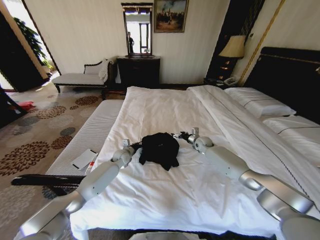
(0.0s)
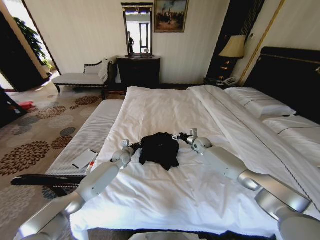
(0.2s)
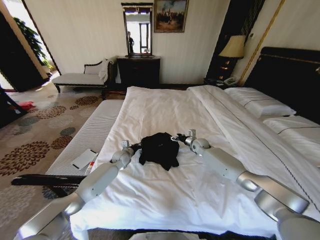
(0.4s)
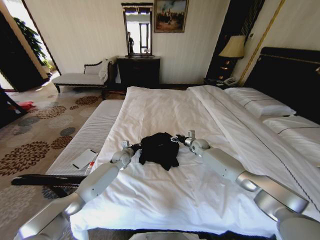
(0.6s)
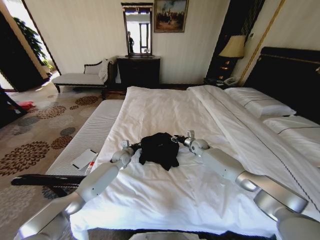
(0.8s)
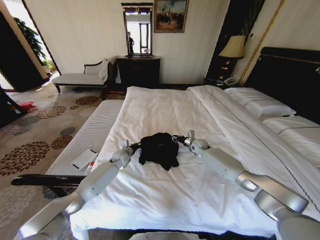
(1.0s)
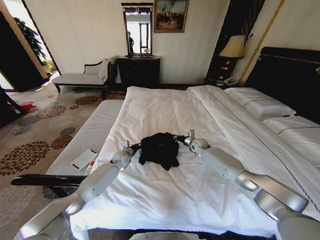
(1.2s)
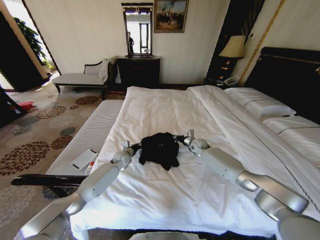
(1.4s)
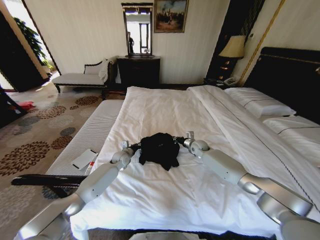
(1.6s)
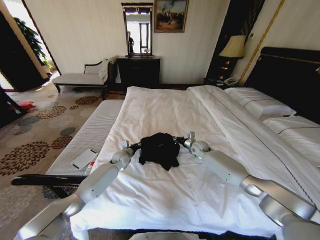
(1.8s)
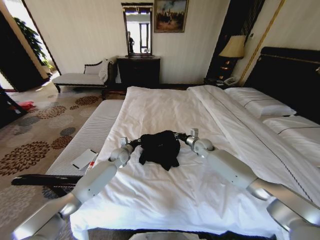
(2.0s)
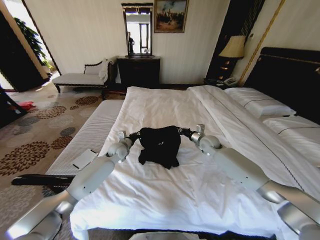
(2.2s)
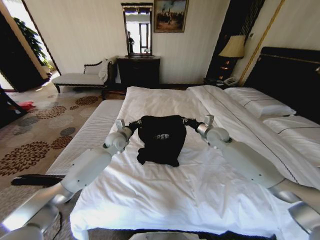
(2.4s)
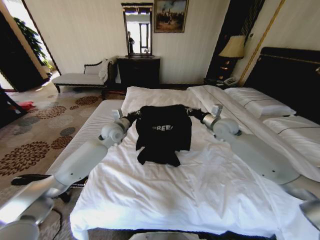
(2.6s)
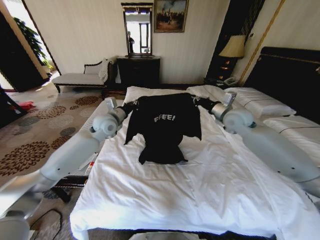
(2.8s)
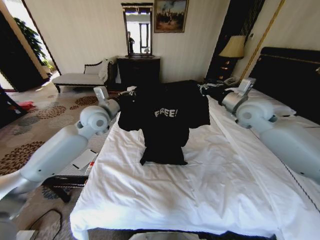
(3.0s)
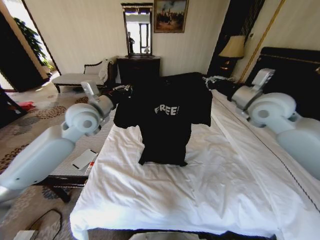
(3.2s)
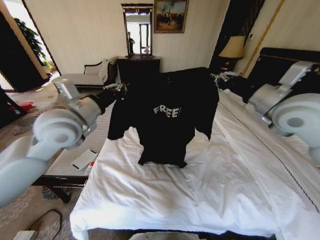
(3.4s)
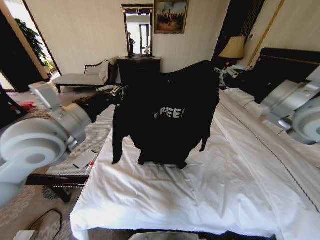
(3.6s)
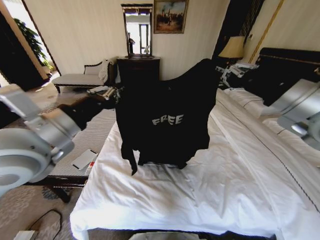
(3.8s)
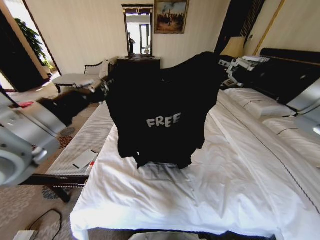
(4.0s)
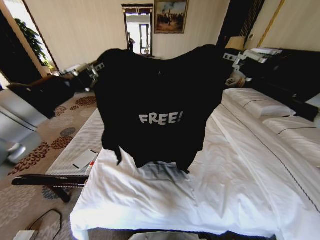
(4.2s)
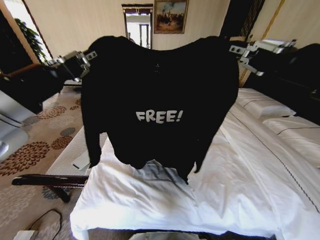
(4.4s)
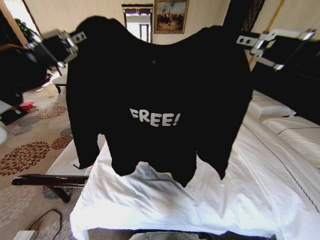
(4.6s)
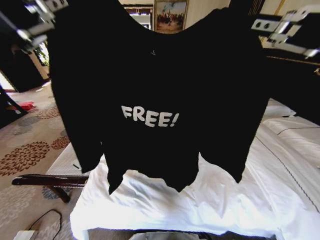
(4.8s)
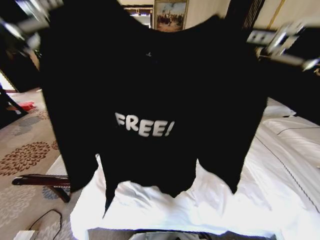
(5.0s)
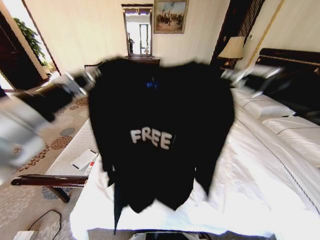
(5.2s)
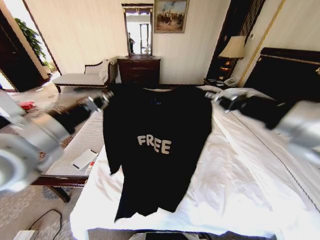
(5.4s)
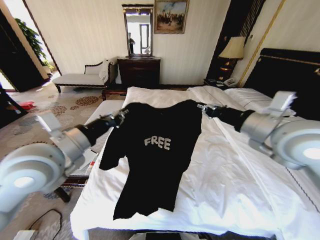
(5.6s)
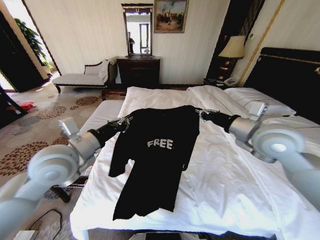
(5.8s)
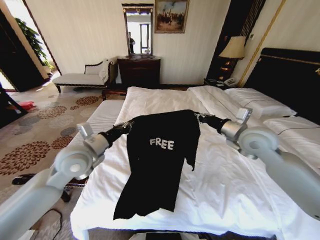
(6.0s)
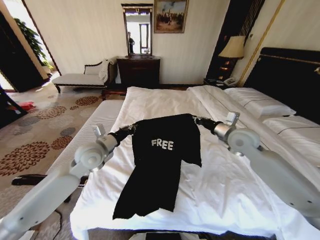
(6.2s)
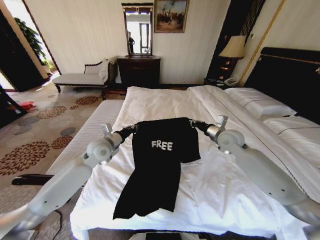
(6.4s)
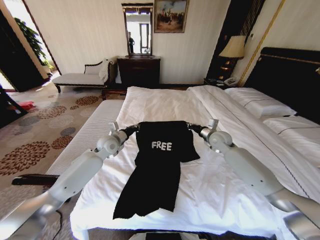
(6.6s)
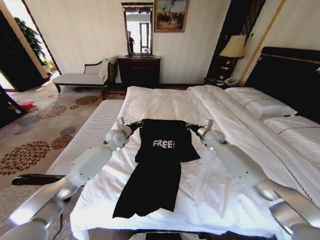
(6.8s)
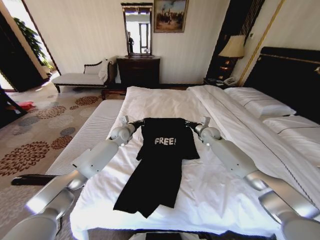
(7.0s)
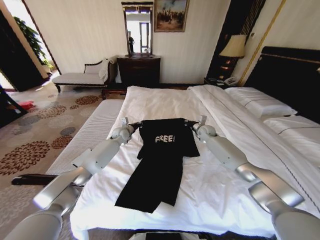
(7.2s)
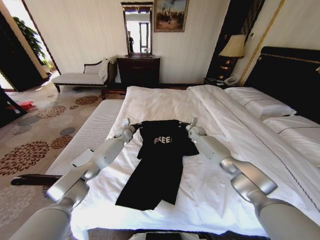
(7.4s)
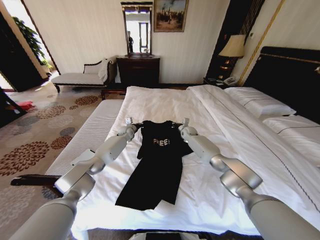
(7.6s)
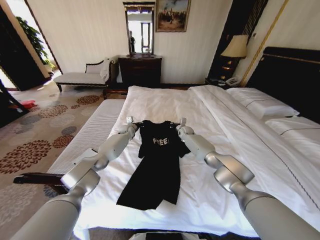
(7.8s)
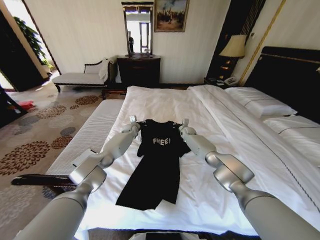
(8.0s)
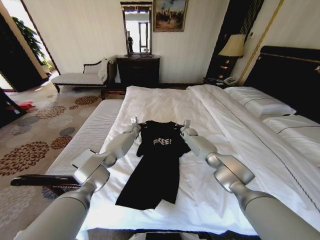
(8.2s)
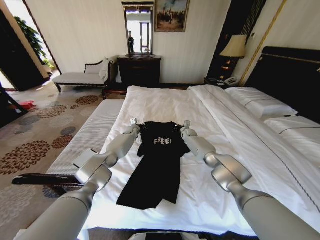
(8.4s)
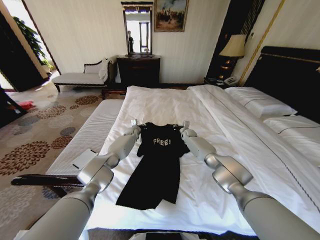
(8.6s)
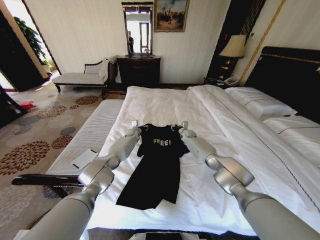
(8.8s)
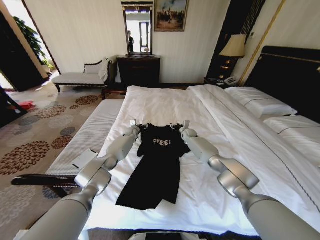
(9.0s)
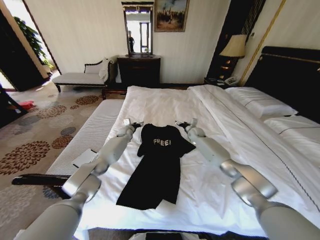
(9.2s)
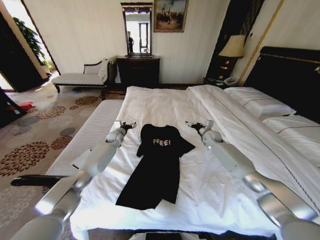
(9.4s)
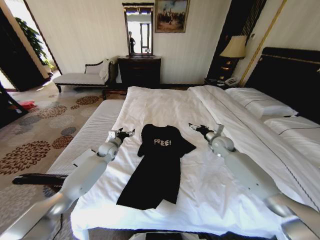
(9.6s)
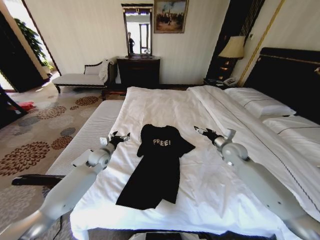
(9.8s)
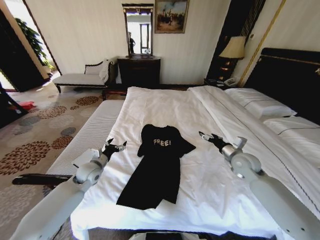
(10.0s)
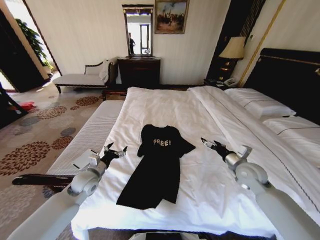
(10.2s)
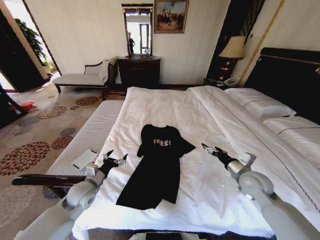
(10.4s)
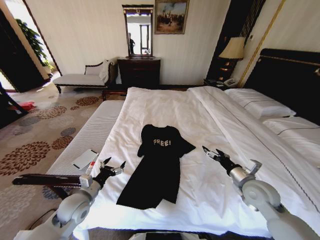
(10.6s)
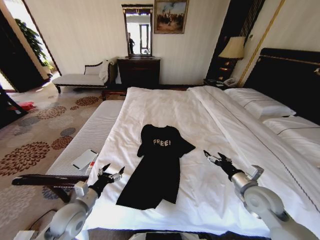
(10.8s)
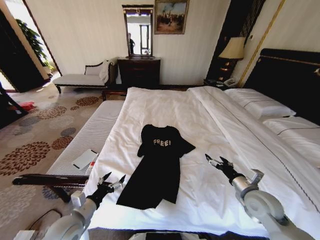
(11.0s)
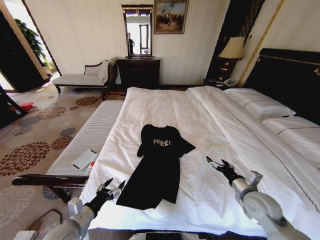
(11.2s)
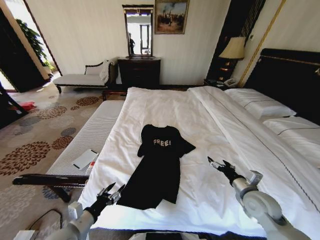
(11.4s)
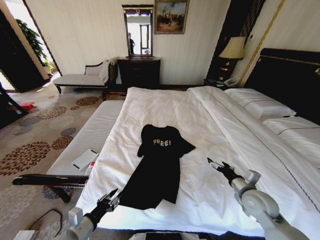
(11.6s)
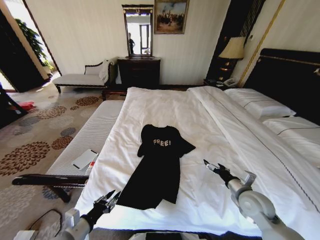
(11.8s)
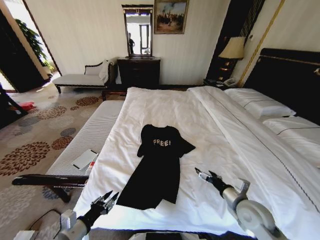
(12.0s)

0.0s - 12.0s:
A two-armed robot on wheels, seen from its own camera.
Task of the whole recording: Fold the clothes on the bed.
0.0s - 1.6s: The right gripper closes its fingers.
1.6s - 3.0s: The grippers both shift upward by about 30 cm.
3.0s - 4.4s: The grippers both shift backward and upward by some 30 cm.
4.4s - 6.0s: Both grippers travel together downward and forward, about 25 cm.
6.0s - 7.6s: Both grippers move forward and downward, roughly 35 cm.
7.6s - 9.0s: The left gripper opens; the right gripper opens its fingers.
9.0s - 10.4s: Both grippers move backward, approximately 35 cm. The right gripper opens up; the left gripper opens up.
10.4s - 12.0s: The right gripper goes some 10 cm backward, while the left gripper is displaced backward by about 15 cm, and closes up.

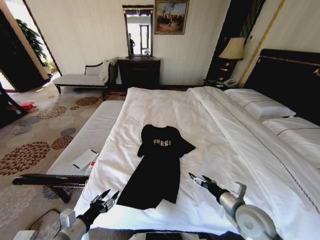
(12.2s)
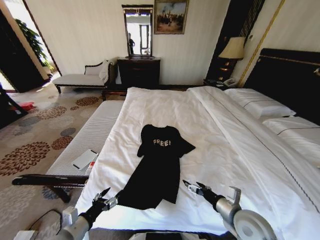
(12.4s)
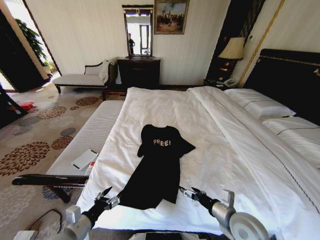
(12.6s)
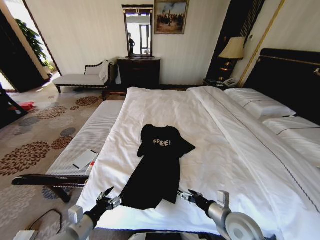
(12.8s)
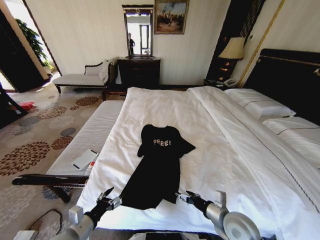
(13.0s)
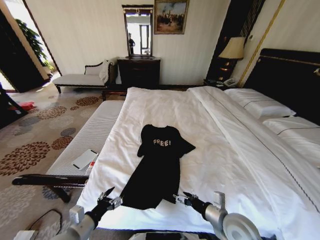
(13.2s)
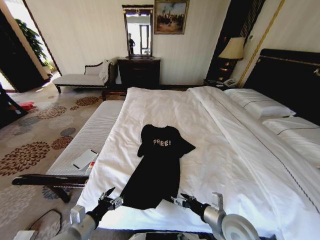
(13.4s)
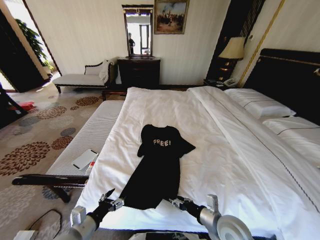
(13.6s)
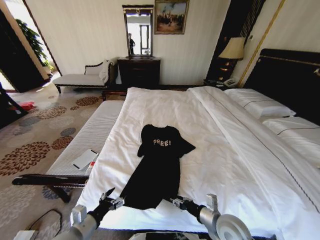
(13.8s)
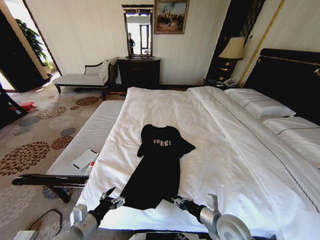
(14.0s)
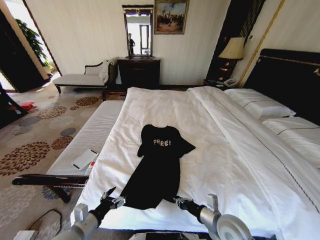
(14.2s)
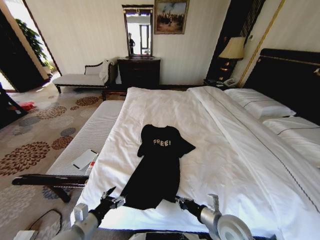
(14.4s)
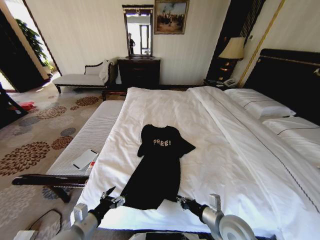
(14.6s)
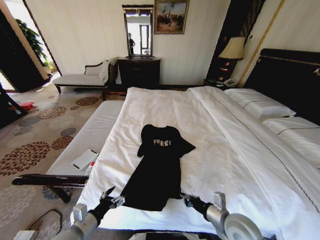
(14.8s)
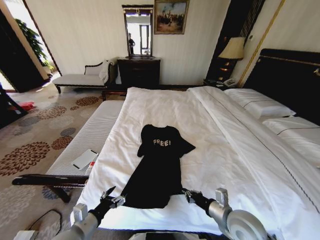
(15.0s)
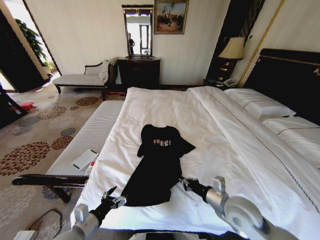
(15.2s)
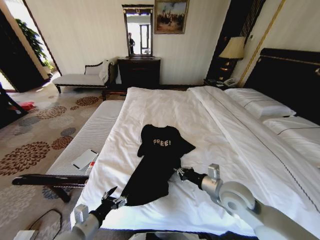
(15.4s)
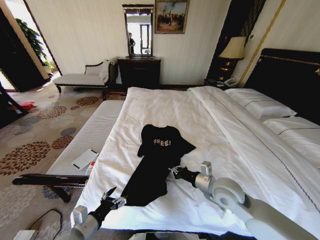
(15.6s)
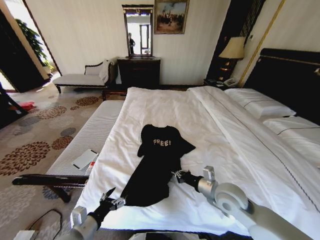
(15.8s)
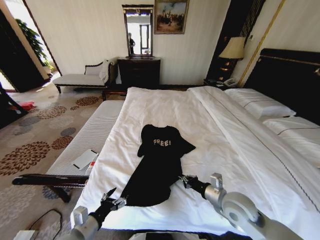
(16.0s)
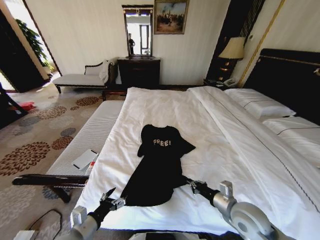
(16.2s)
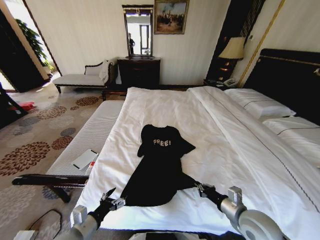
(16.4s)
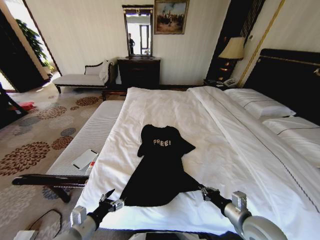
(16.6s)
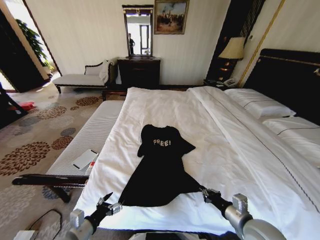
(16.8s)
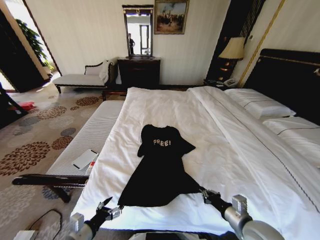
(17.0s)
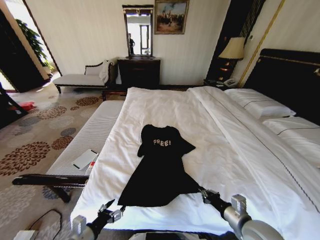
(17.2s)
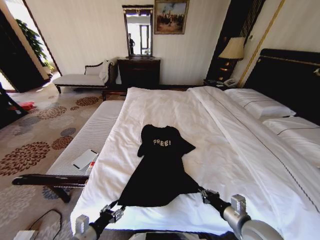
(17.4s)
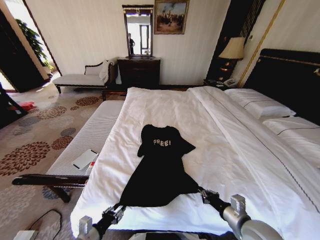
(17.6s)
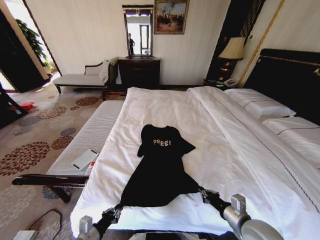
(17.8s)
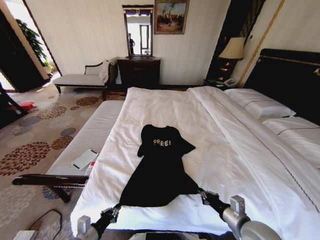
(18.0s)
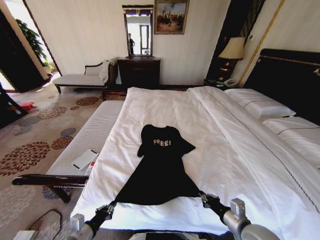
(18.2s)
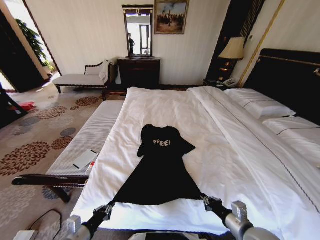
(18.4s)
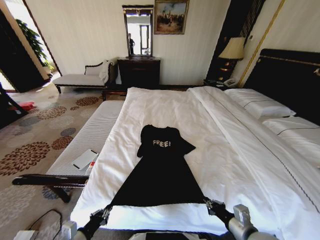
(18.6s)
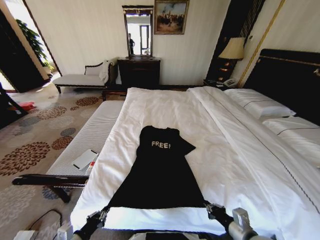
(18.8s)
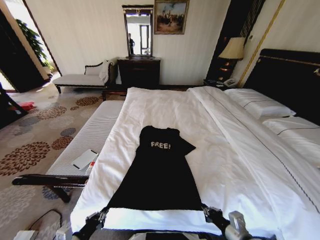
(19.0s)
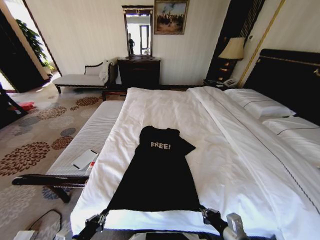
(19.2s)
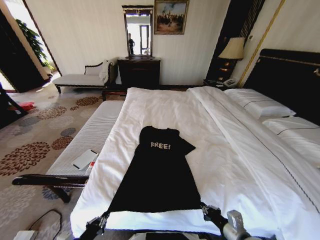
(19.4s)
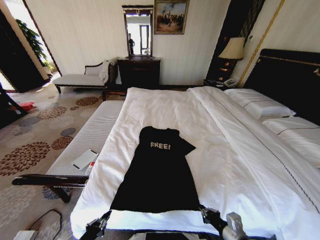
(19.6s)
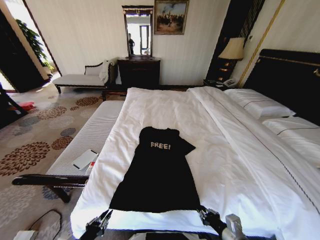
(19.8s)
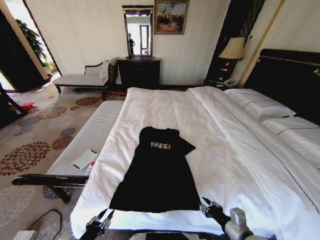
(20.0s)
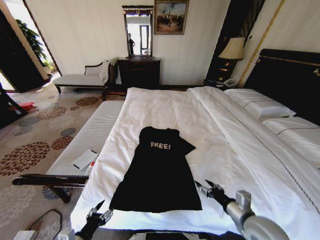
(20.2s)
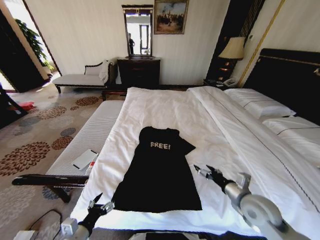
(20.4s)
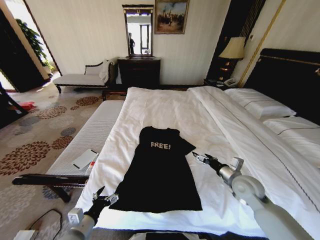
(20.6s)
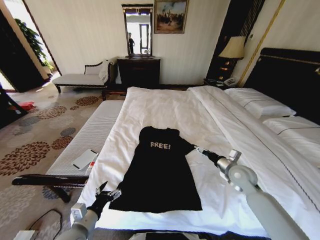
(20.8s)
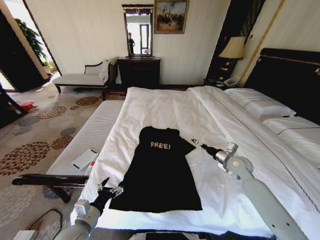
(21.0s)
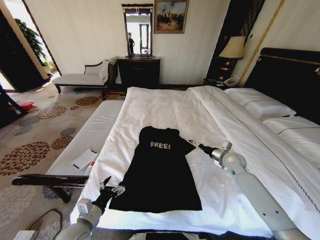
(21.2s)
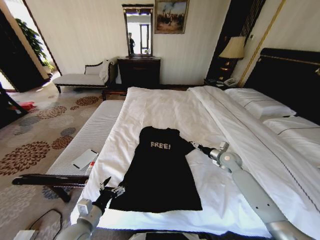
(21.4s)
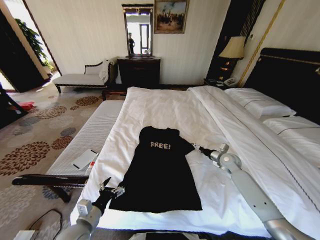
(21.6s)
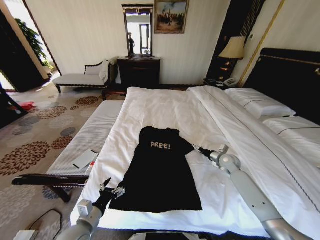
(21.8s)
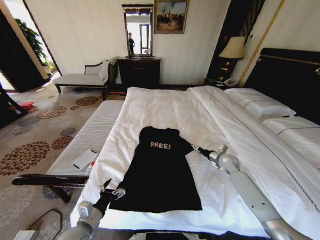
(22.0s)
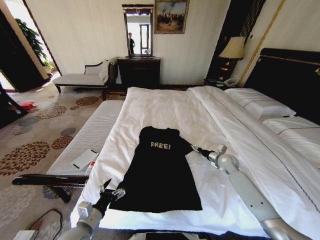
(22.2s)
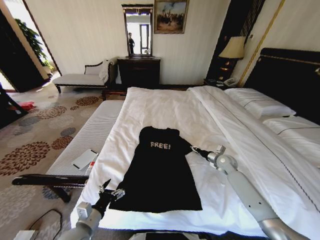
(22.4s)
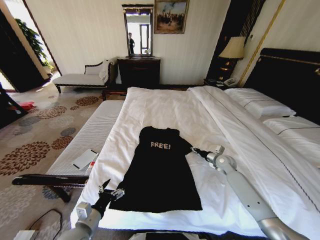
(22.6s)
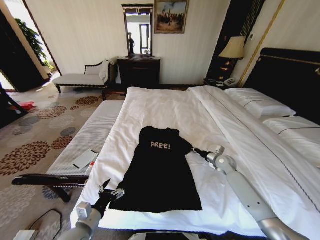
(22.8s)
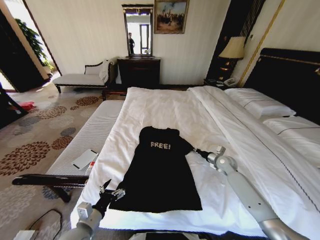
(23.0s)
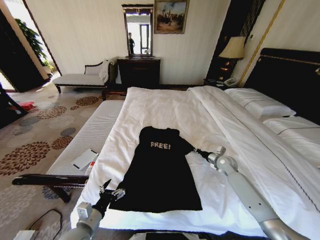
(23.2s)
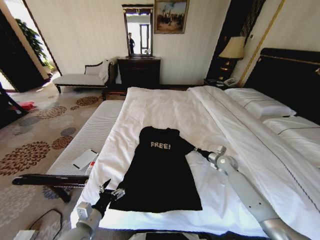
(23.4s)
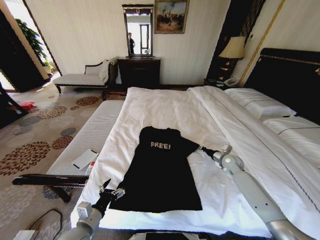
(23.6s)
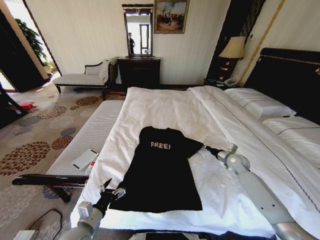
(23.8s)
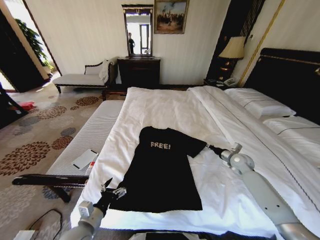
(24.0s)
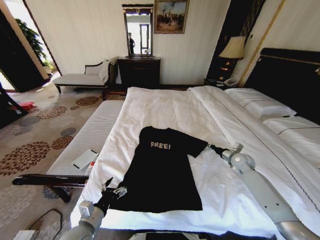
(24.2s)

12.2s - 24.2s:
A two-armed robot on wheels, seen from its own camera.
Task of the whole recording: Fold the clothes on the bed.
12.2s - 13.8s: The right gripper travels to the left by about 5 cm.
13.8s - 15.2s: The right gripper heads upward, covering approximately 5 cm, and closes its fingers.
15.2s - 16.6s: The right gripper goes roughly 5 cm backward.
16.6s - 18.2s: The left gripper closes up.
18.2s - 19.8s: The left gripper travels backward by about 5 cm. The right gripper ends up approximately 5 cm from where it was.
19.8s - 21.2s: The right gripper goes roughly 30 cm forward, and opens up. Meanwhile the left gripper travels forward by approximately 10 cm, and opens its fingers.
21.2s - 22.6s: The right gripper goes approximately 5 cm downward, and closes.
22.6s - 24.2s: The right gripper heads to the right, covering roughly 5 cm, and closes its fingers.
